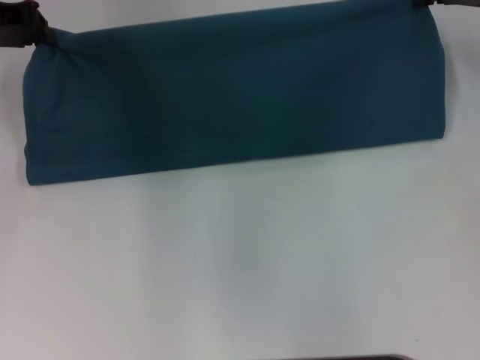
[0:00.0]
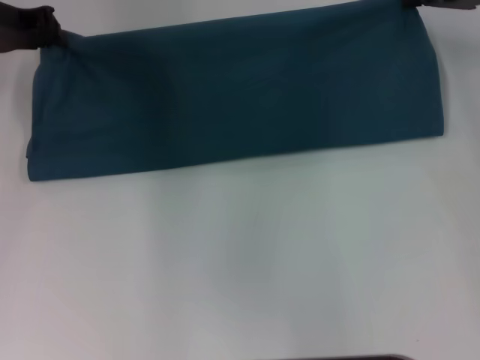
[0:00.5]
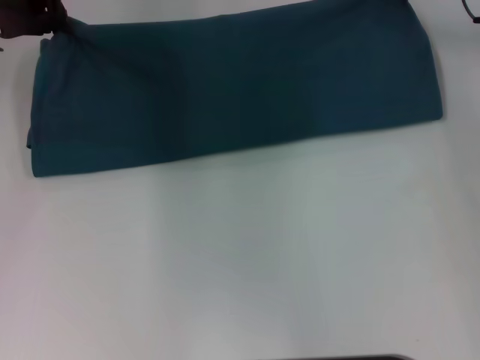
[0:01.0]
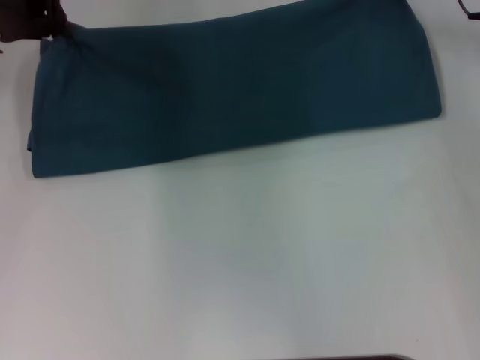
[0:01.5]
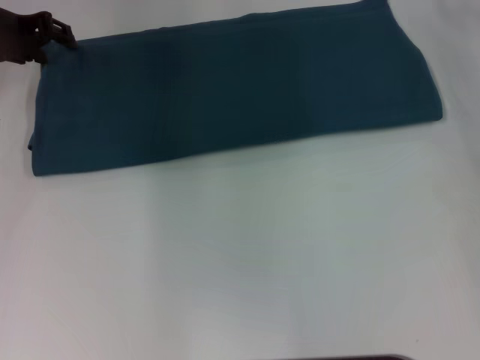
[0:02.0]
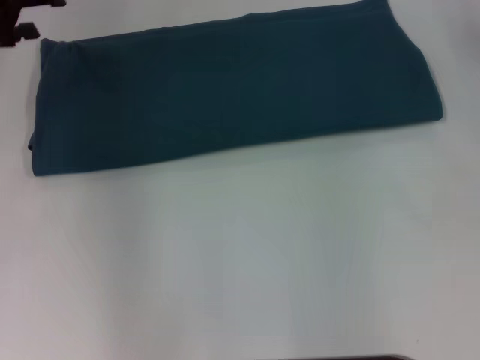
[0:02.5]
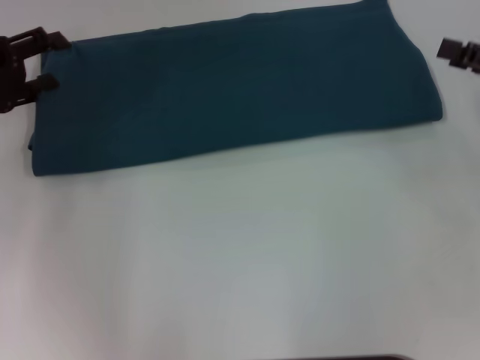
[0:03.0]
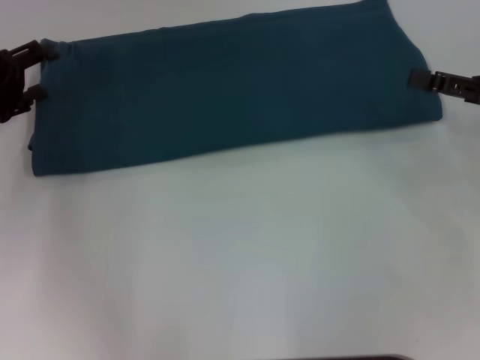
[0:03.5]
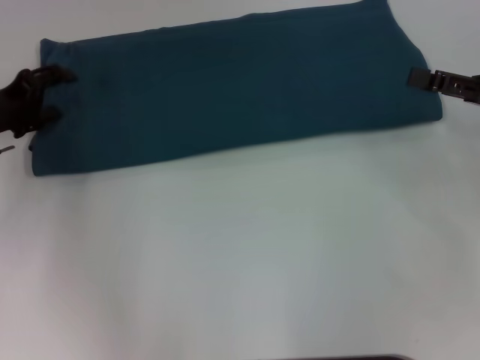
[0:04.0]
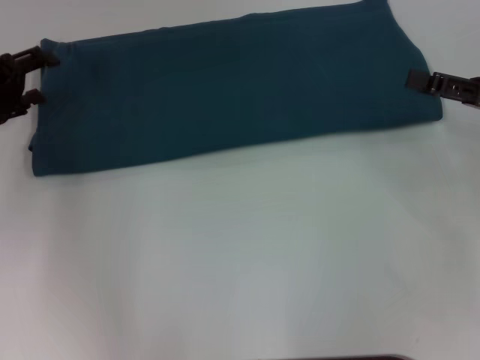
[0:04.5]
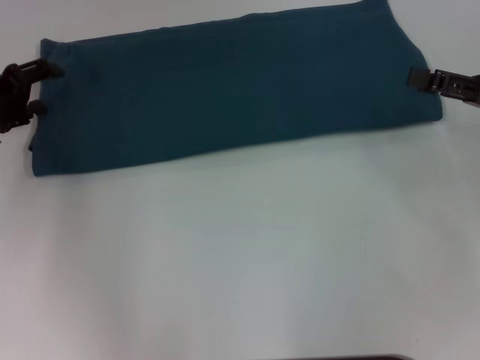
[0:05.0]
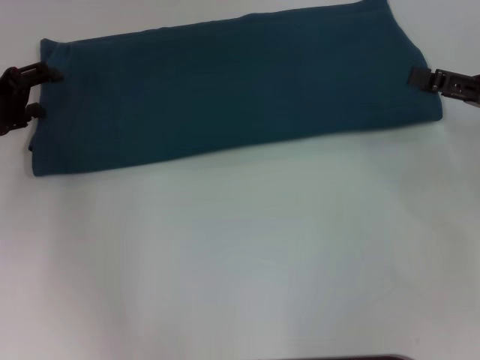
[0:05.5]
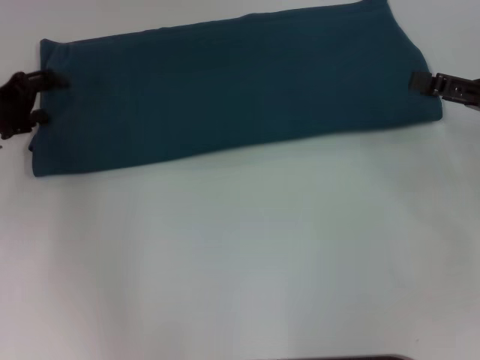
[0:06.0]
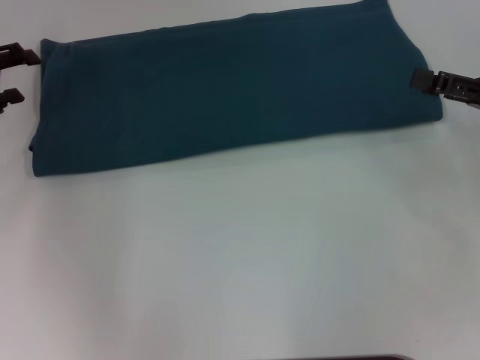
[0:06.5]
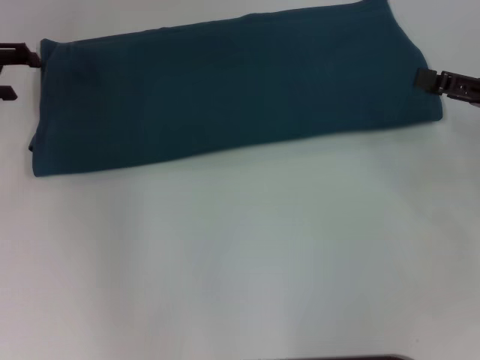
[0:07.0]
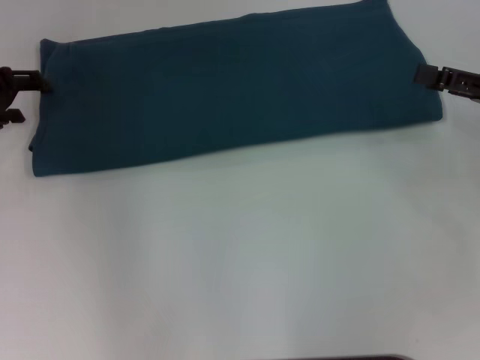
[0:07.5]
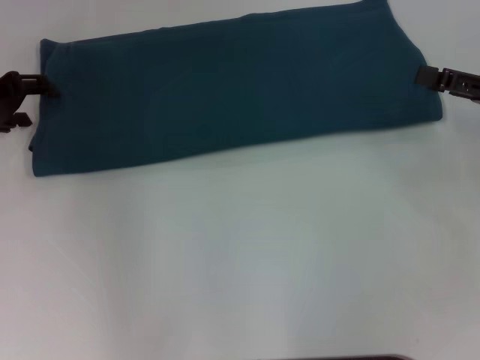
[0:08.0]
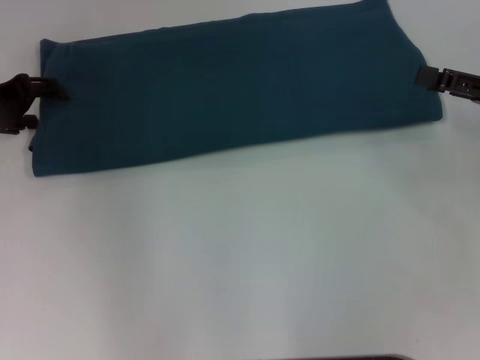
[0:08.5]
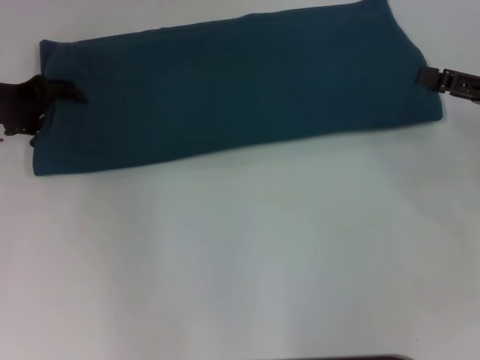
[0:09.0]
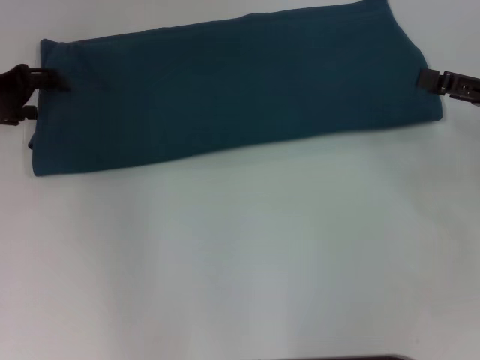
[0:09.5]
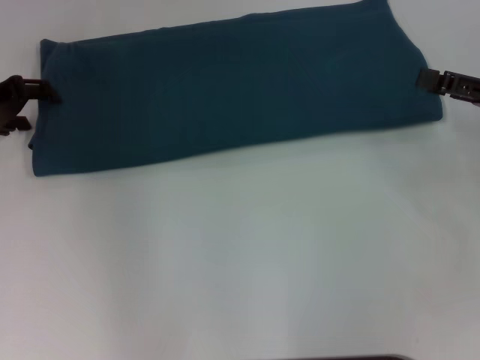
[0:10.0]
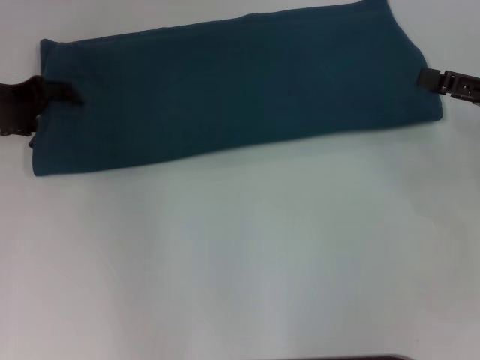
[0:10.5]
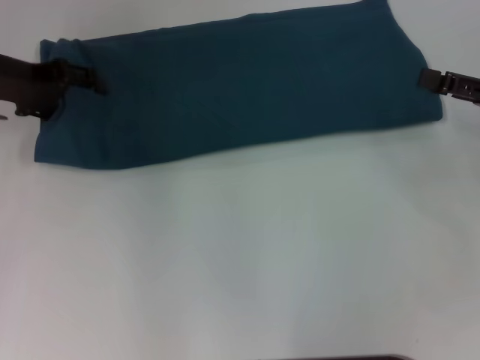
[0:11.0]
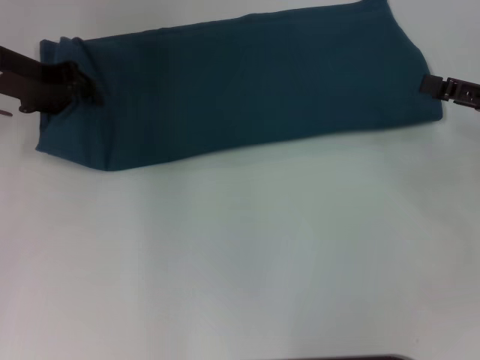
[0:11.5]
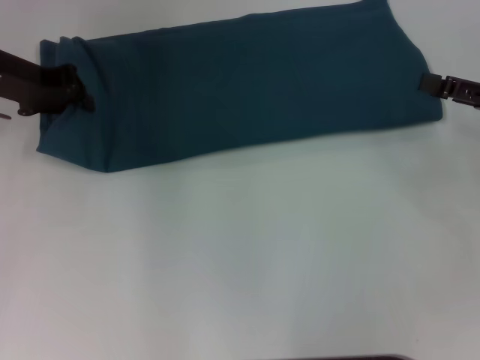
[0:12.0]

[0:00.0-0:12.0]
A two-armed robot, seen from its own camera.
Step, 0.0 to 2.0 s: Fold the clothes to the right.
0.0 to 2.0 s: The right gripper moves approximately 5 cm.
2.0 to 4.0 s: The right gripper goes roughly 20 cm backward and downward, and opens up; the left gripper goes approximately 15 cm downward and backward, and opens.
10.0 to 12.0 s: The left gripper shifts by some 5 cm, and closes.

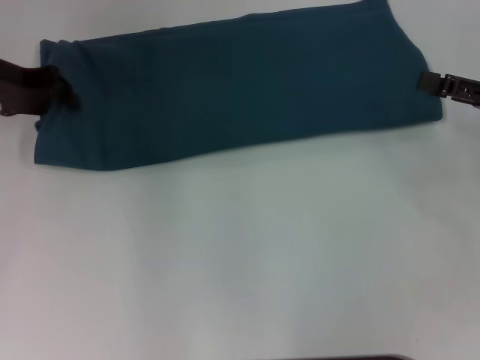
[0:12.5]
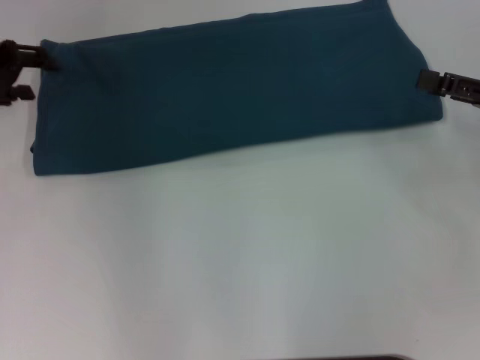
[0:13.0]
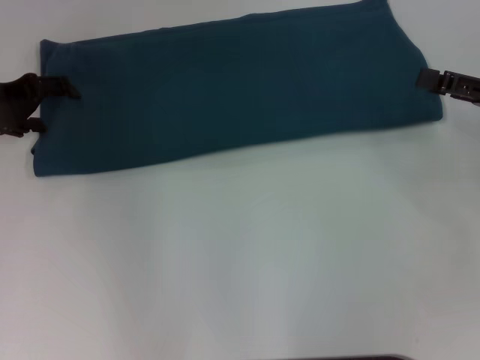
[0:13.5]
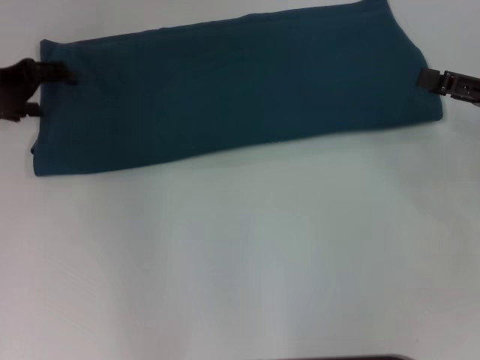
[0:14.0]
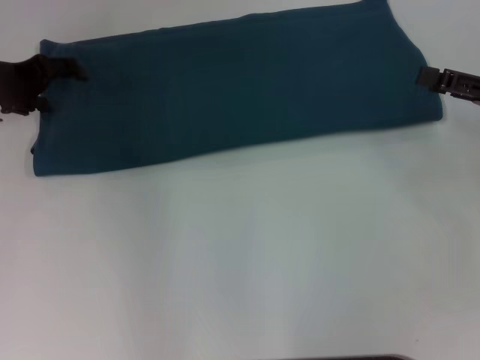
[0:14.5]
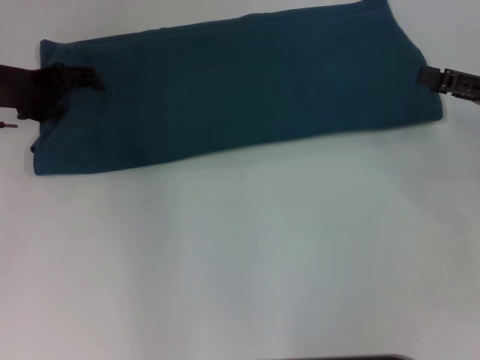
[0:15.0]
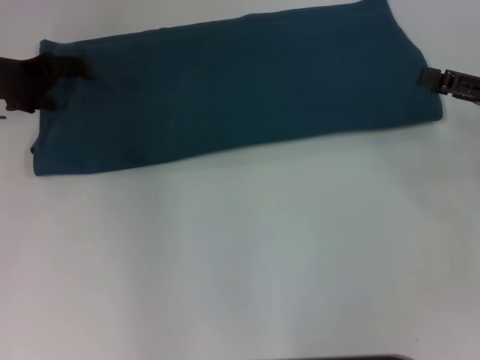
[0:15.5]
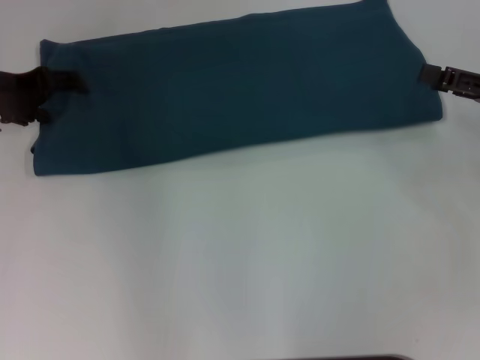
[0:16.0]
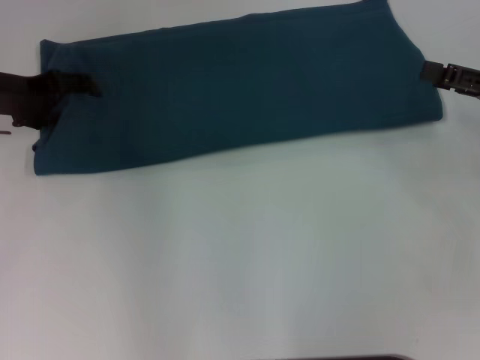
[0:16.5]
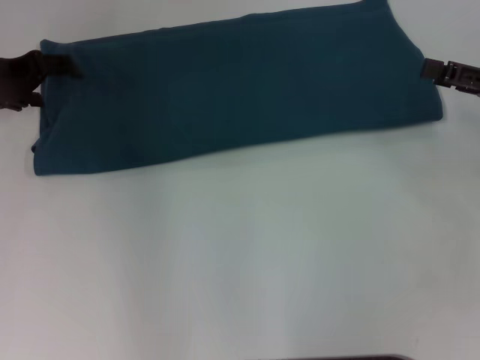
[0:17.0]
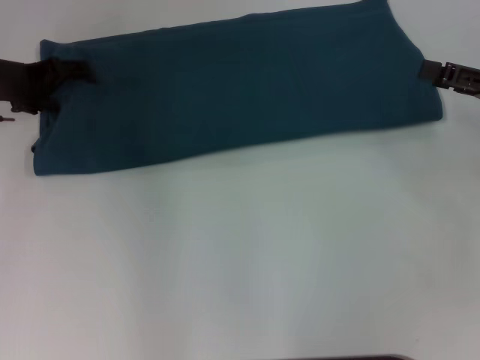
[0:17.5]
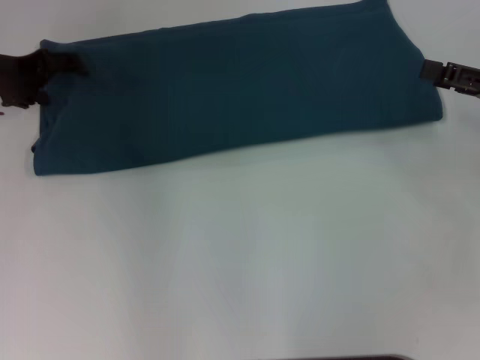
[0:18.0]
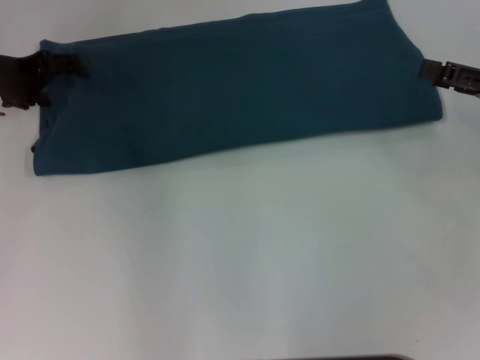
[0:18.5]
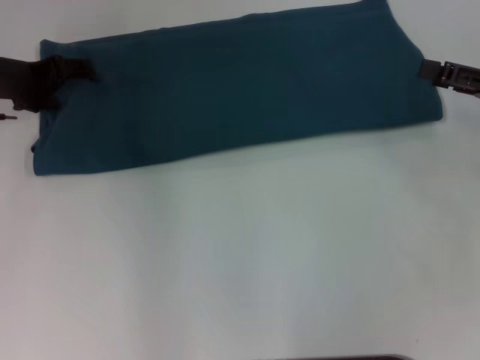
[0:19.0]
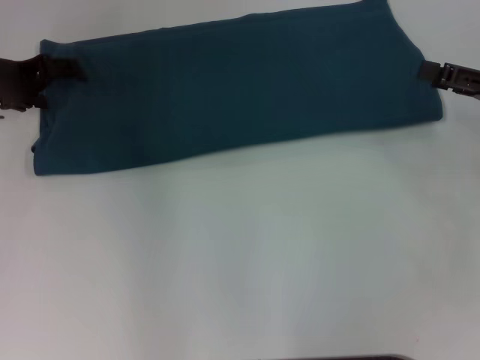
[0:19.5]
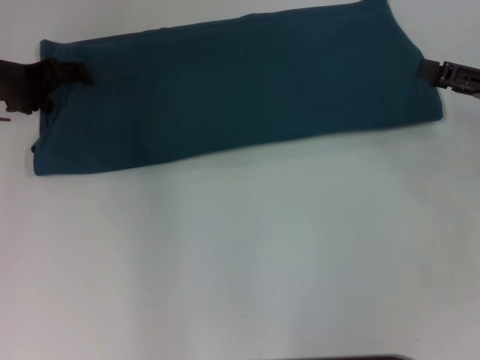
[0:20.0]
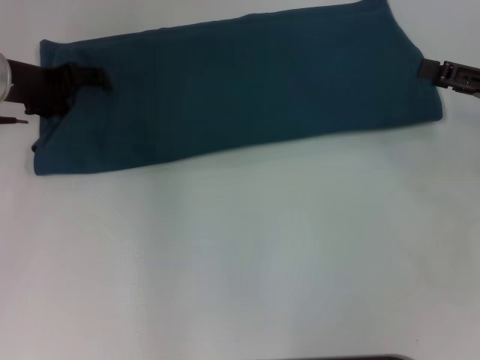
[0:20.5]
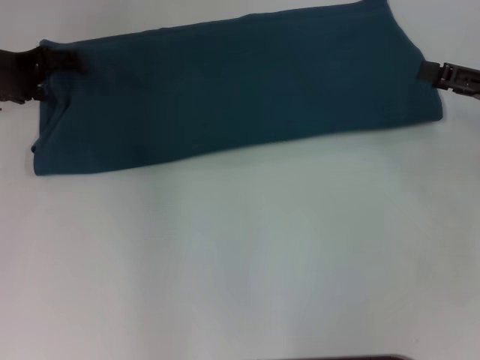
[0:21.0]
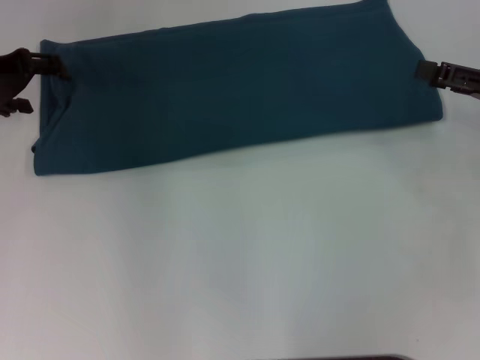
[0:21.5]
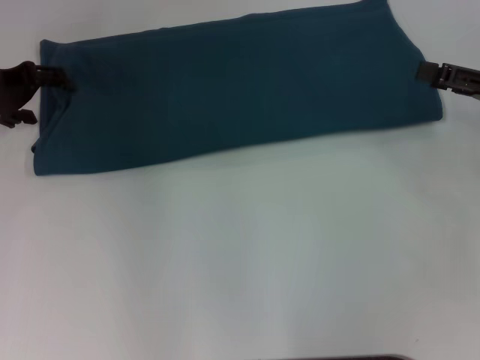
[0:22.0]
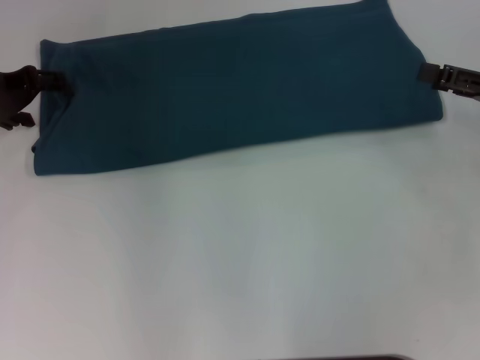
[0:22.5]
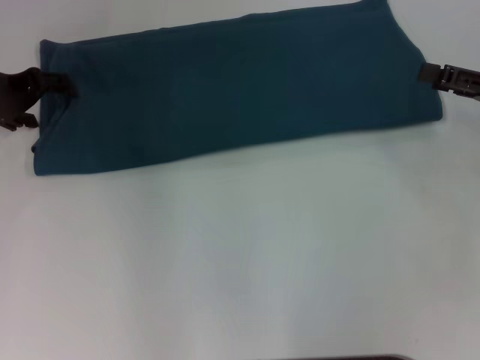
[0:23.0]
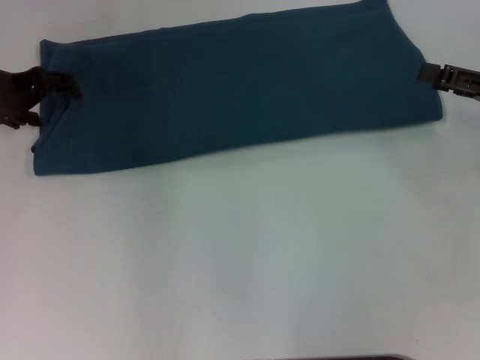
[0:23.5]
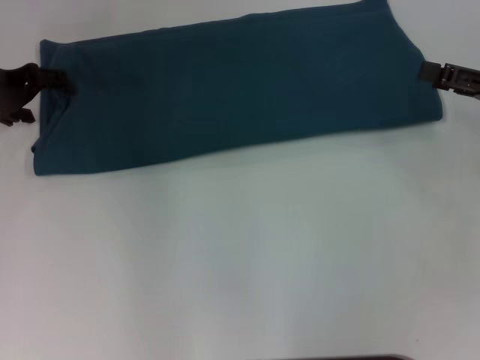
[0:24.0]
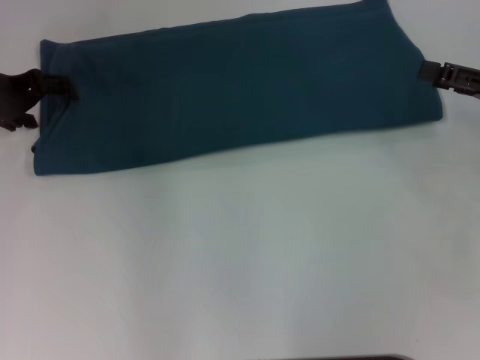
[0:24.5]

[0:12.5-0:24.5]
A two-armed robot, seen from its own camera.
12.5 to 14.5 s: The left gripper opens its fingers.
14.5 to 16.5 s: Both grippers stay about where they are.
16.5 to 22.5 s: The grippers make only small movements.
22.5 to 24.5 s: Both grippers stay about where they are.

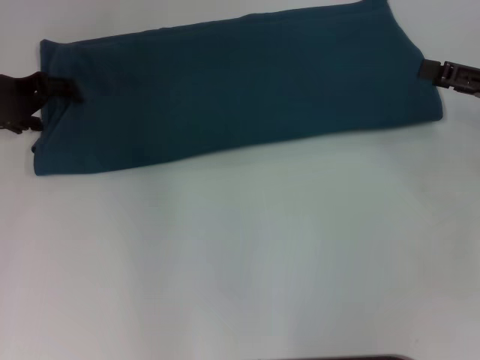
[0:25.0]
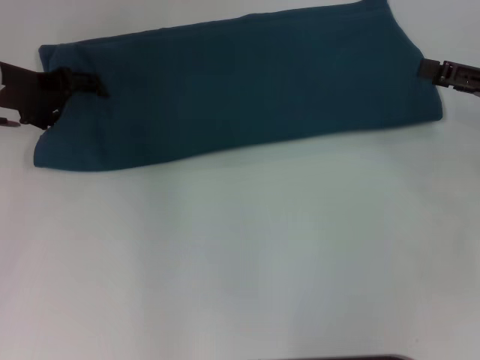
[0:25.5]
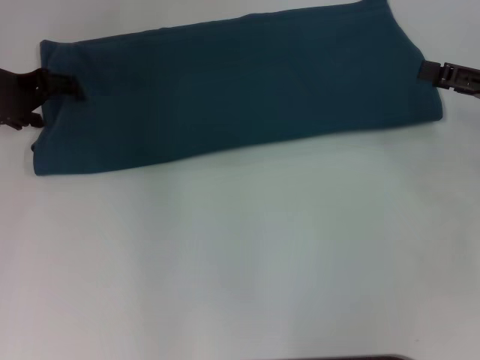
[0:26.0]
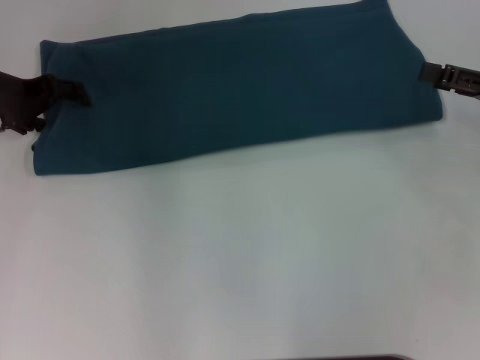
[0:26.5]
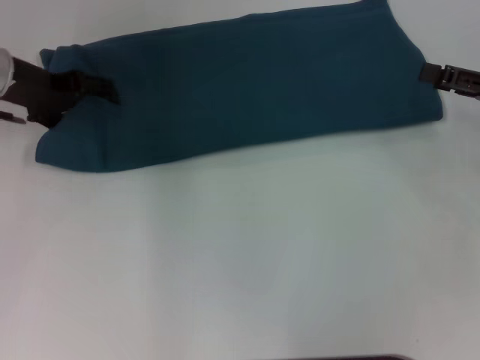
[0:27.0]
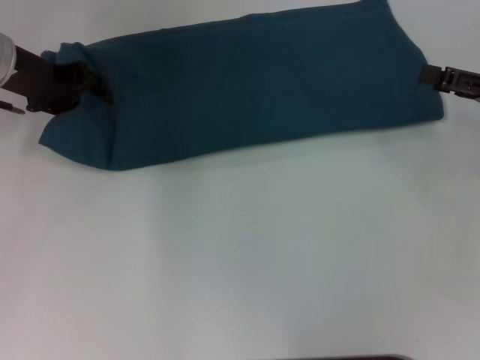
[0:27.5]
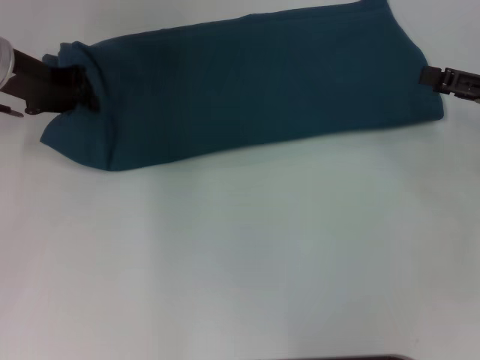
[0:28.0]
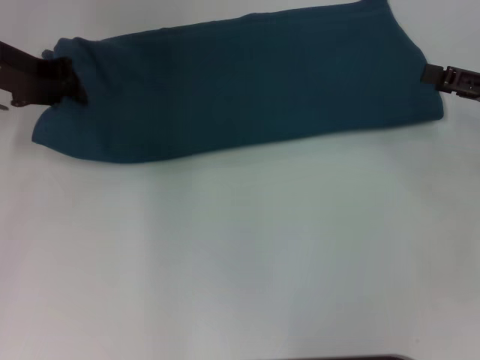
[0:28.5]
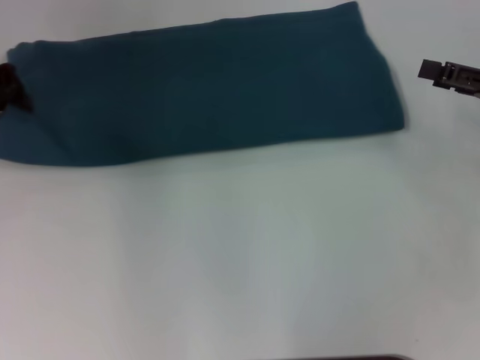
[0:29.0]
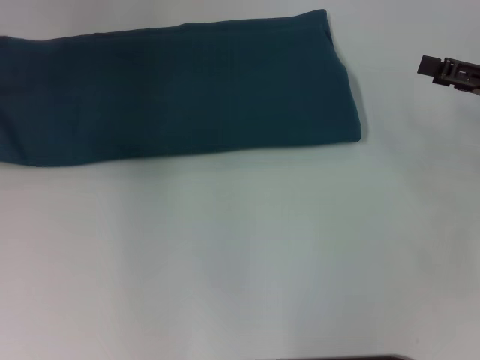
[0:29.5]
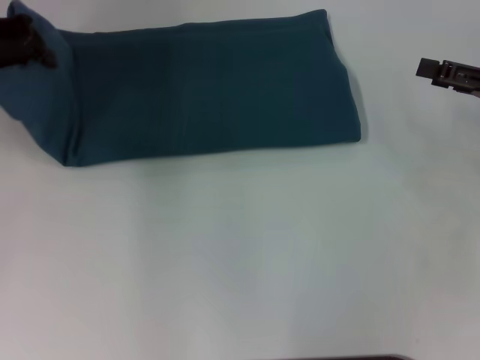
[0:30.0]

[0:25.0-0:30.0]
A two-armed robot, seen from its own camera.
25.0 to 27.5 s: The grippers move only a little.
27.5 to 30.0 s: The left gripper goes about 5 cm upward, and closes.
